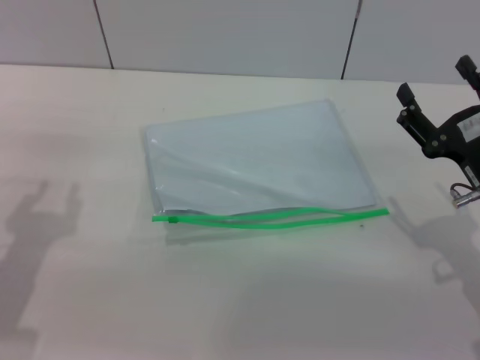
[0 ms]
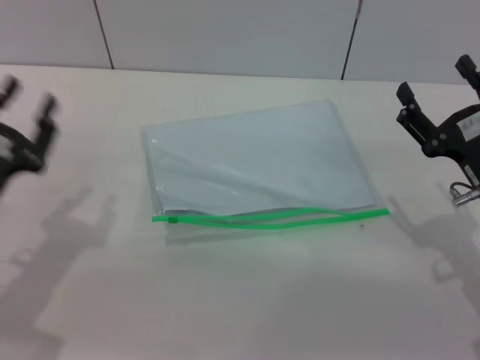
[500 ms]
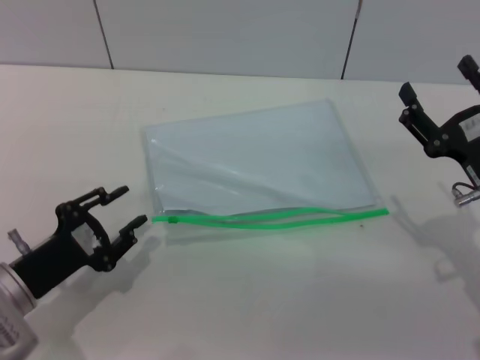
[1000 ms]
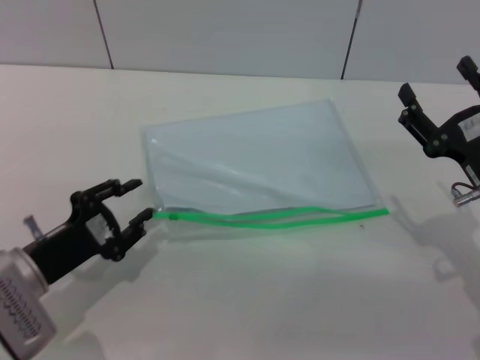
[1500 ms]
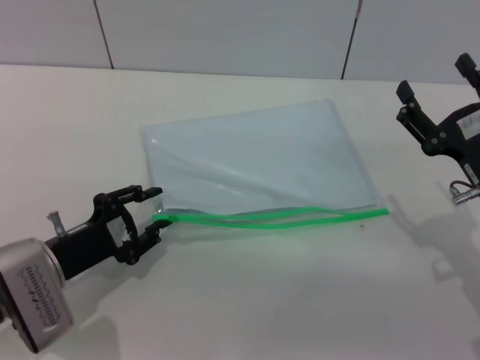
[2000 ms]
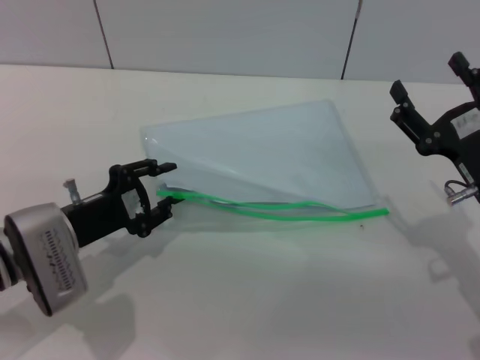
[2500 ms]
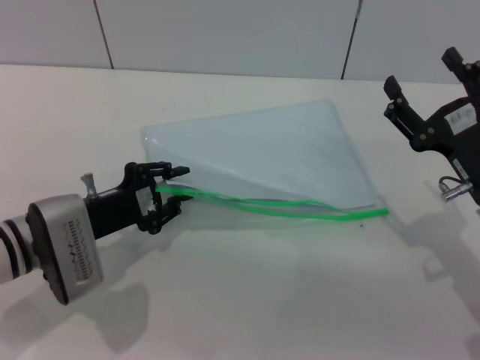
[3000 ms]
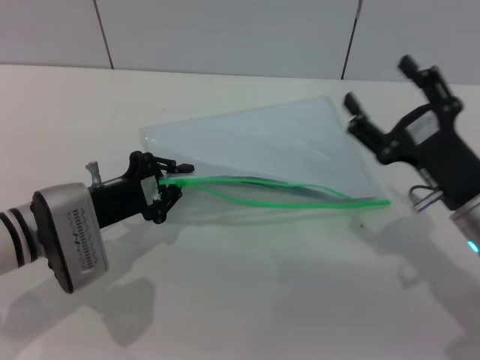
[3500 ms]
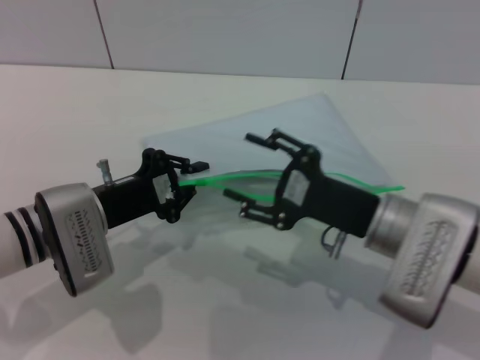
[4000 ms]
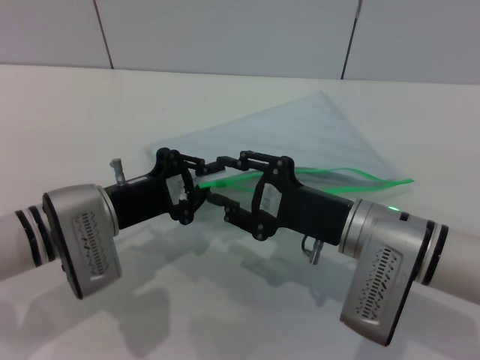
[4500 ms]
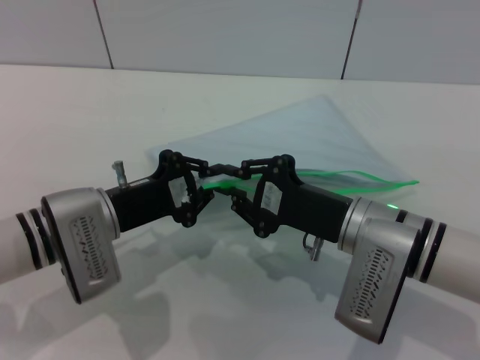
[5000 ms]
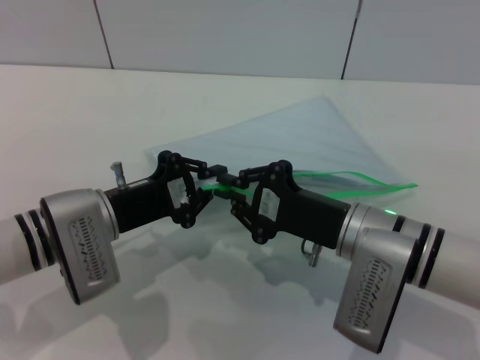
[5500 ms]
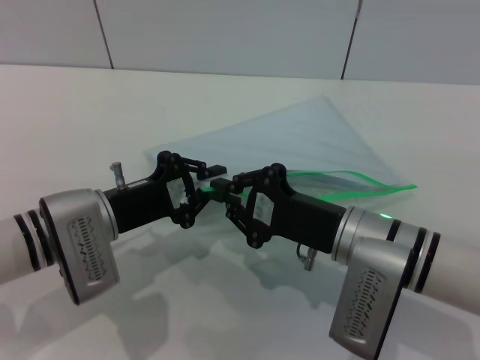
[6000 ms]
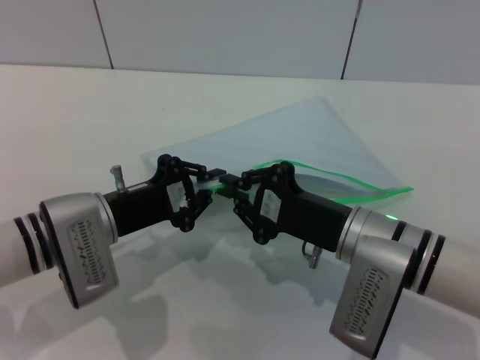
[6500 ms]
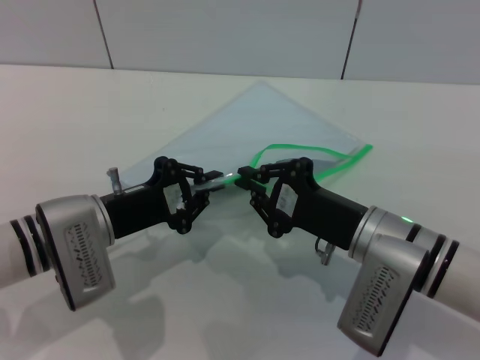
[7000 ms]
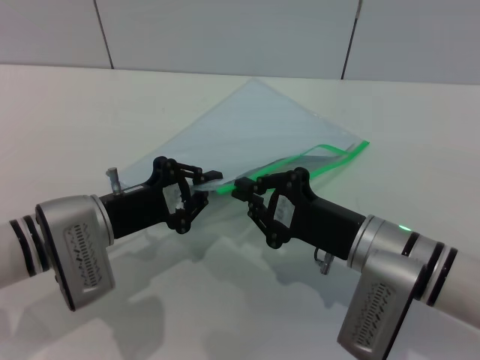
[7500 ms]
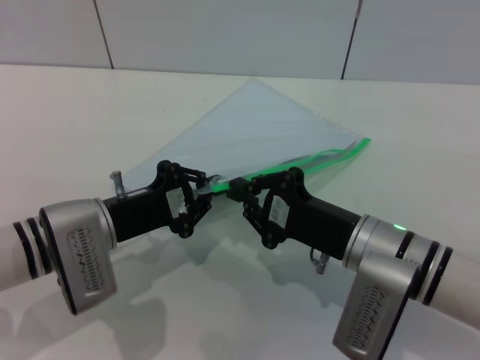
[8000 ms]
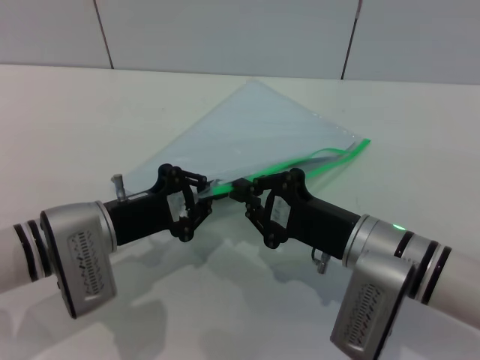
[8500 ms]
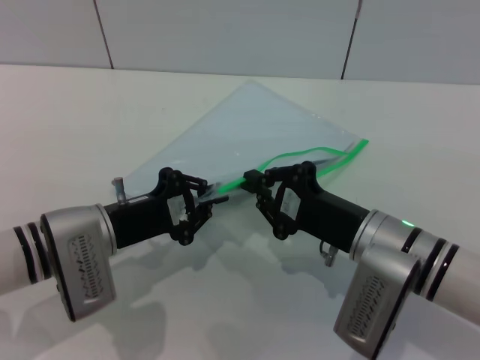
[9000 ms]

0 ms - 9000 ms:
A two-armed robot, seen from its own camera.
Step, 0 ms - 3500 ms: Pick up the transparent plastic bag with the left gripper.
0 ms - 2000 ms: The left gripper shifts about 10 cm downward and to the right.
2000 ms - 4500 ms: The right gripper shifts some 10 cm to the left, while the left gripper travels forward by some 5 cm, and closes.
4500 ms - 7000 ms: The right gripper closes its fingers.
7000 ms - 9000 ms: The grippers move only a little.

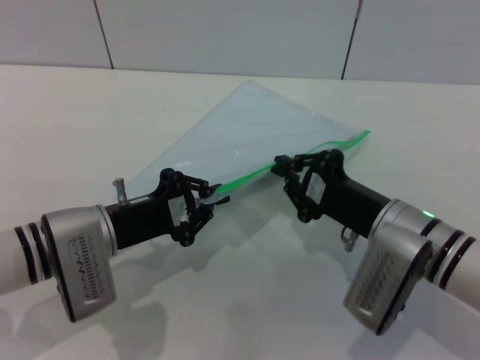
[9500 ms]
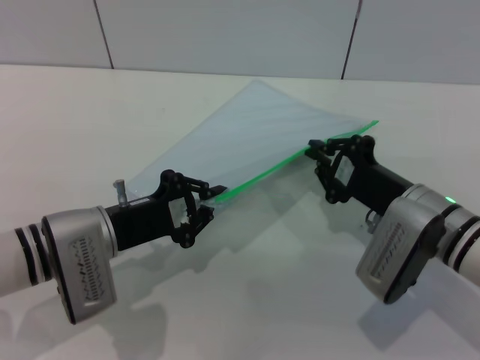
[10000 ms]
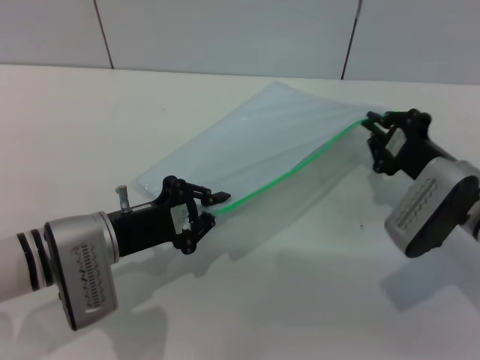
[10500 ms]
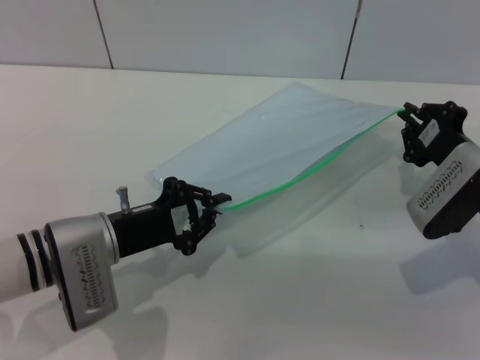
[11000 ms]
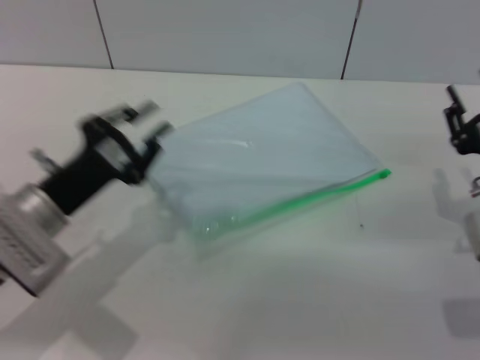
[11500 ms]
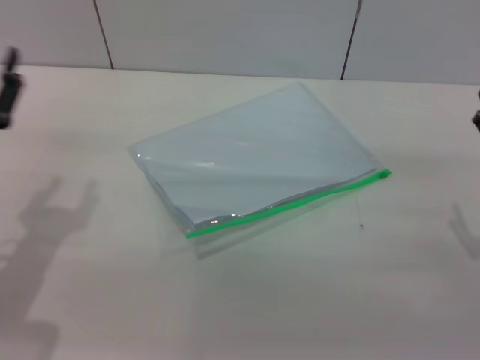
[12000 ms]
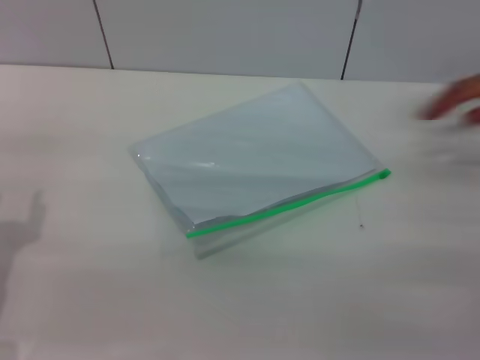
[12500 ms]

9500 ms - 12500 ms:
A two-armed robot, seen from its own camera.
Step, 11500 ms - 12000 ms: Place the transparent plastic bag.
9500 ms - 11000 ms: The right gripper travels to the right and forward by roughly 10 cm.
11000 ms - 12500 ms: The right gripper travels backward and to the right by approximately 15 cm, and opens. Meanwhile the left gripper goes approximately 15 cm to the left and backward, and opens.
